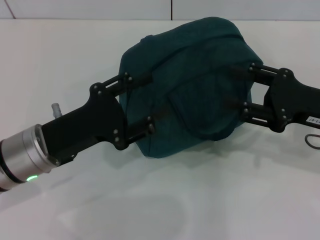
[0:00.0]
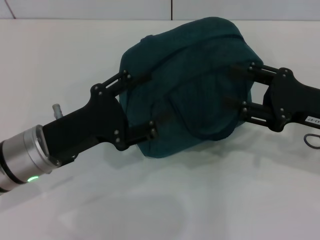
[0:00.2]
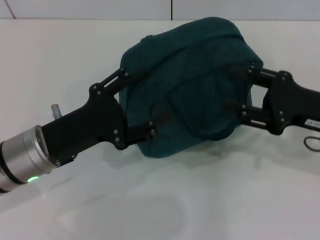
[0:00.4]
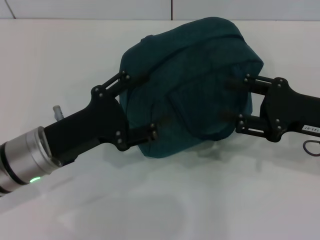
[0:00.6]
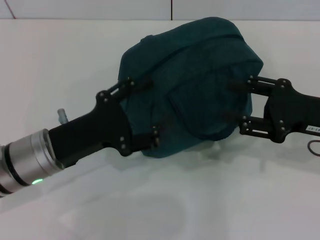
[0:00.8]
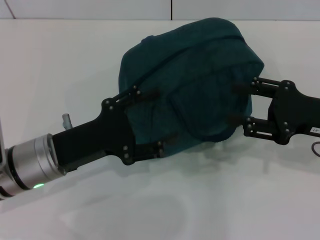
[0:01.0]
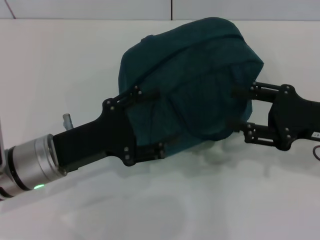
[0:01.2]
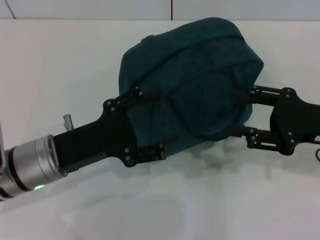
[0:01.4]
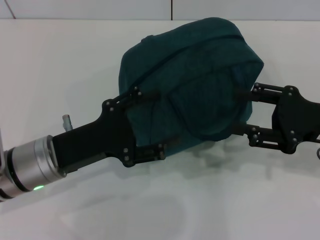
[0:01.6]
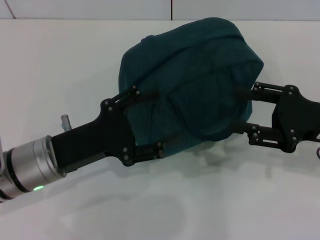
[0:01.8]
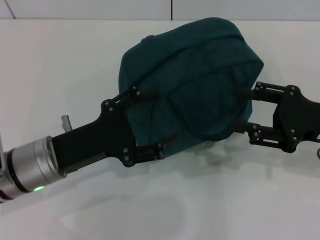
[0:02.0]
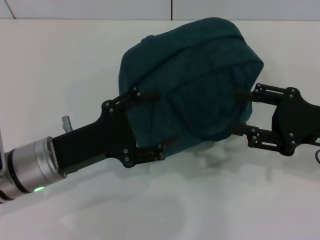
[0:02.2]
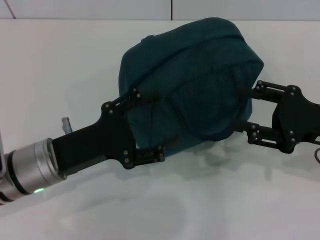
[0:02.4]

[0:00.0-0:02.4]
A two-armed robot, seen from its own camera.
0.0 to 1.2 s: The grippers stay close to where they were, moving slightly.
1.2 to 2.4 s: Neither gripper changes place.

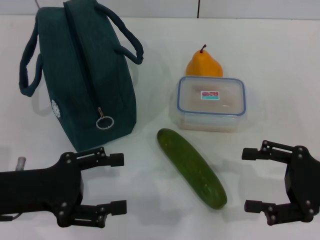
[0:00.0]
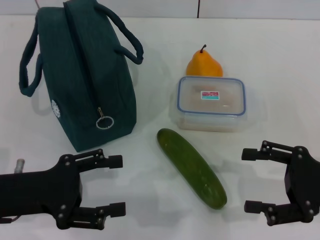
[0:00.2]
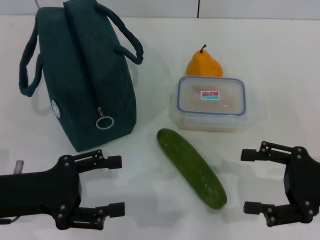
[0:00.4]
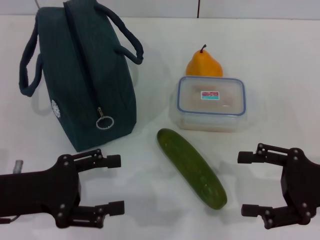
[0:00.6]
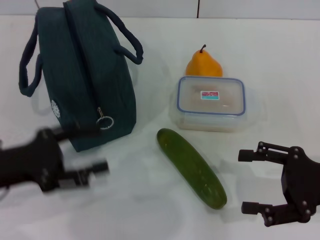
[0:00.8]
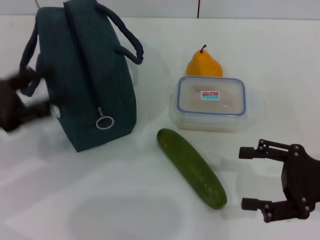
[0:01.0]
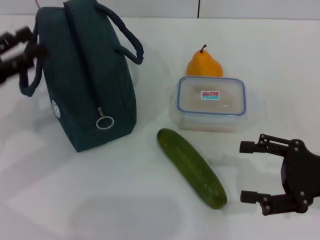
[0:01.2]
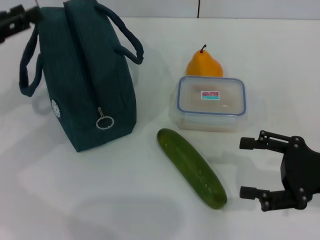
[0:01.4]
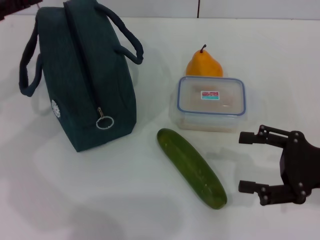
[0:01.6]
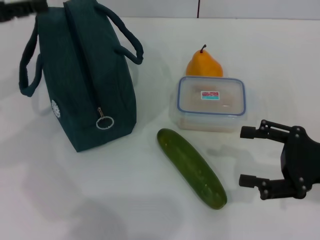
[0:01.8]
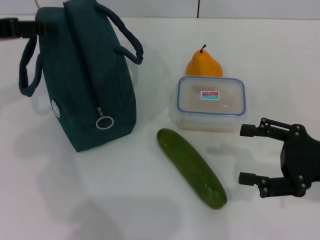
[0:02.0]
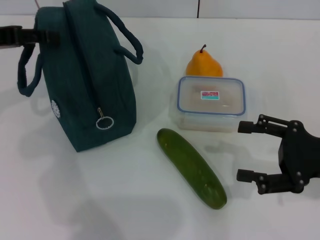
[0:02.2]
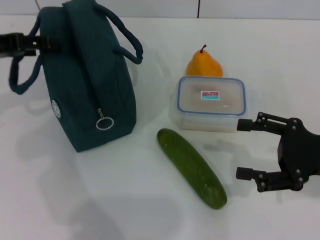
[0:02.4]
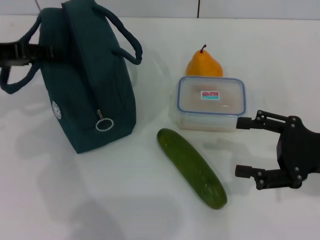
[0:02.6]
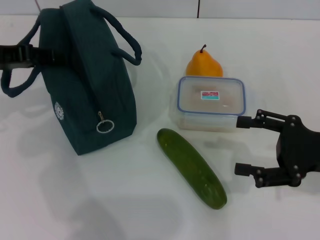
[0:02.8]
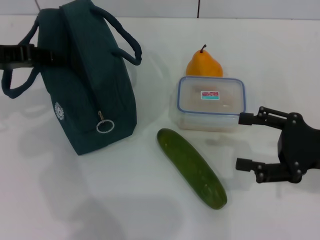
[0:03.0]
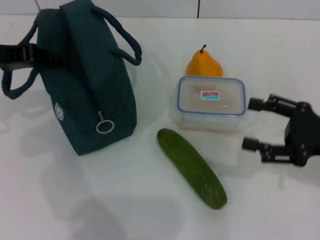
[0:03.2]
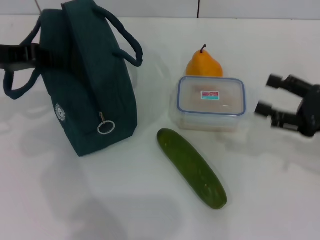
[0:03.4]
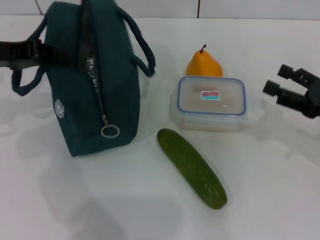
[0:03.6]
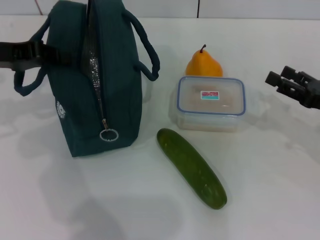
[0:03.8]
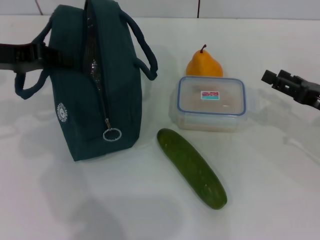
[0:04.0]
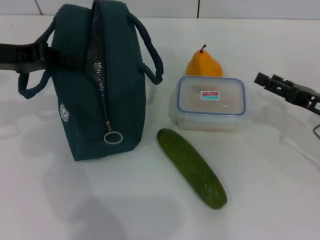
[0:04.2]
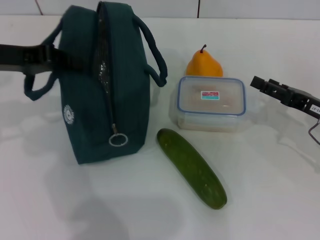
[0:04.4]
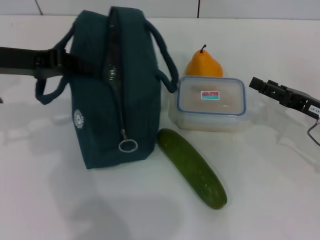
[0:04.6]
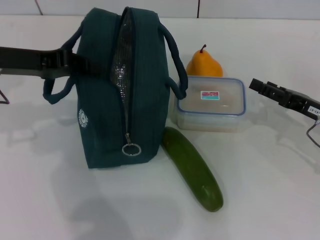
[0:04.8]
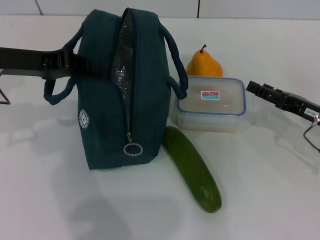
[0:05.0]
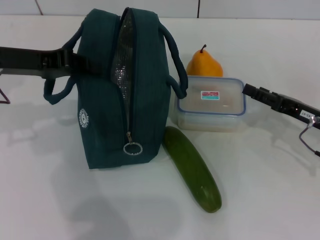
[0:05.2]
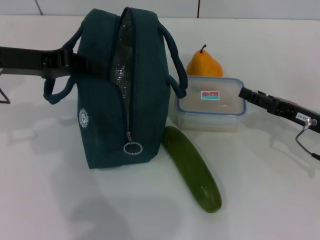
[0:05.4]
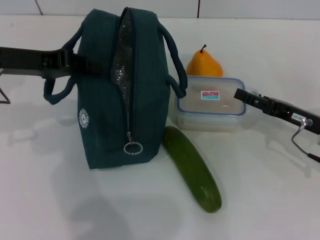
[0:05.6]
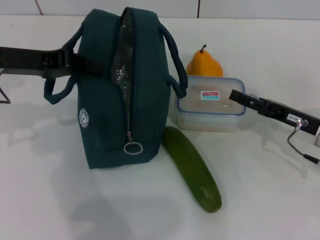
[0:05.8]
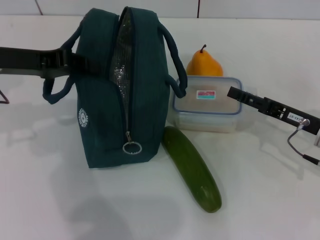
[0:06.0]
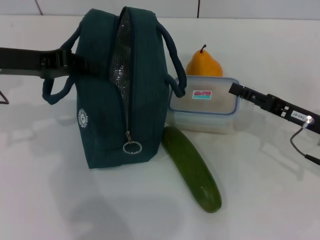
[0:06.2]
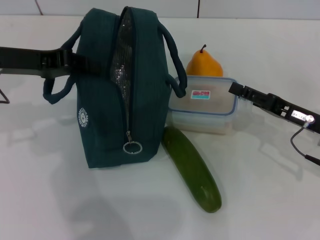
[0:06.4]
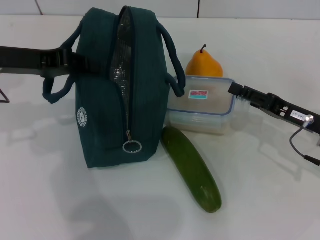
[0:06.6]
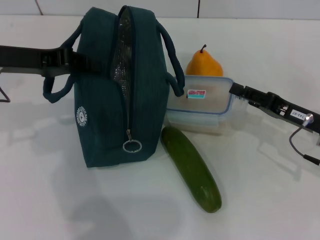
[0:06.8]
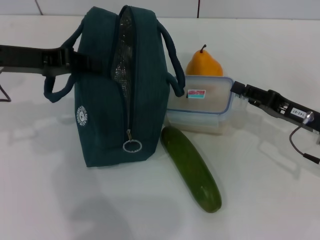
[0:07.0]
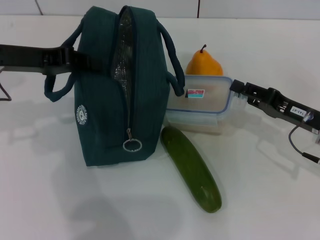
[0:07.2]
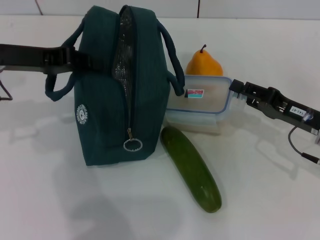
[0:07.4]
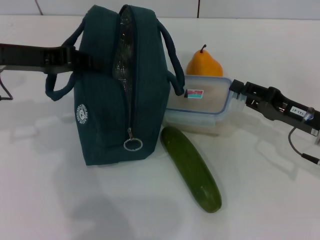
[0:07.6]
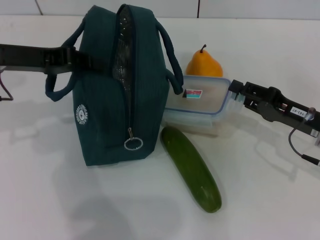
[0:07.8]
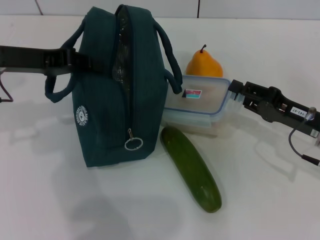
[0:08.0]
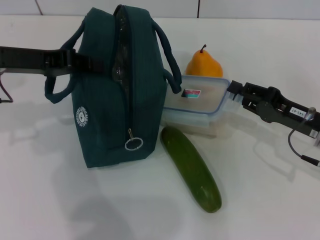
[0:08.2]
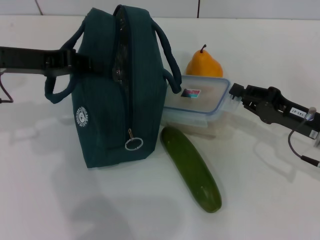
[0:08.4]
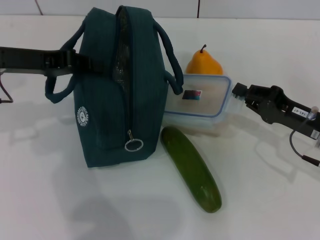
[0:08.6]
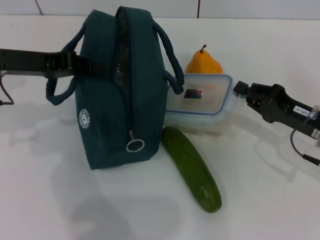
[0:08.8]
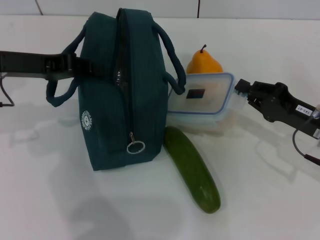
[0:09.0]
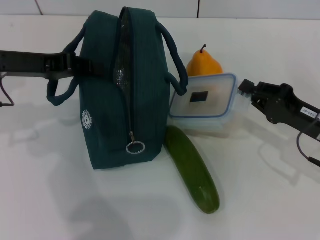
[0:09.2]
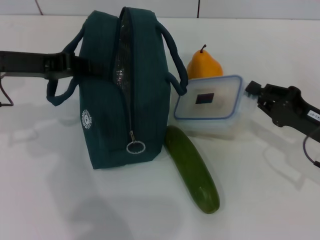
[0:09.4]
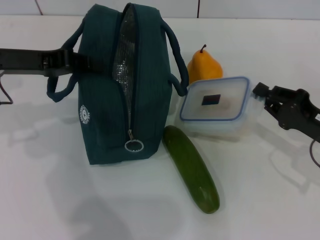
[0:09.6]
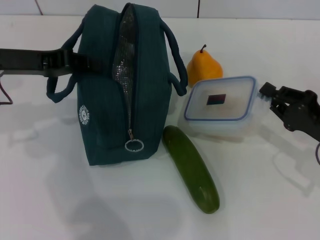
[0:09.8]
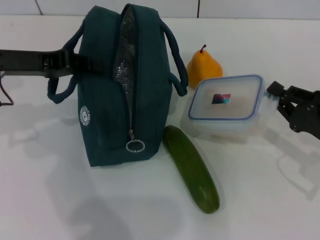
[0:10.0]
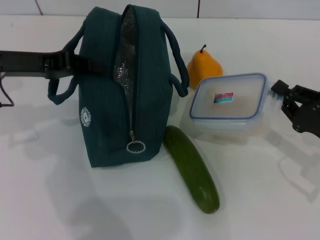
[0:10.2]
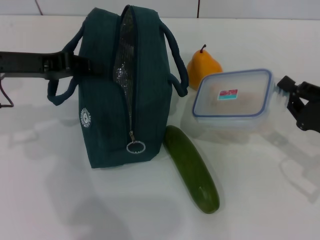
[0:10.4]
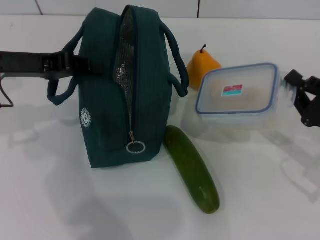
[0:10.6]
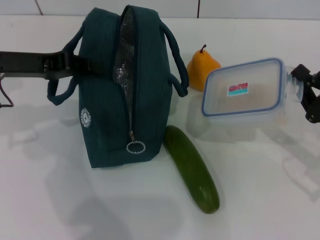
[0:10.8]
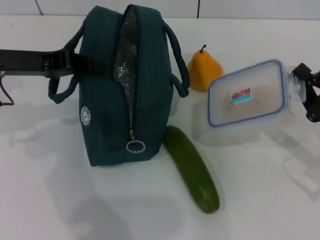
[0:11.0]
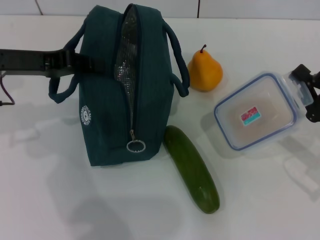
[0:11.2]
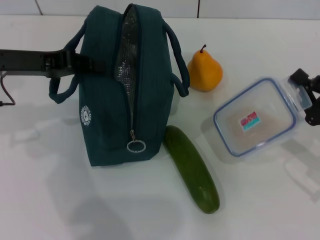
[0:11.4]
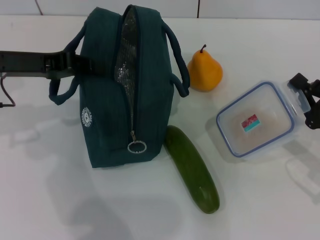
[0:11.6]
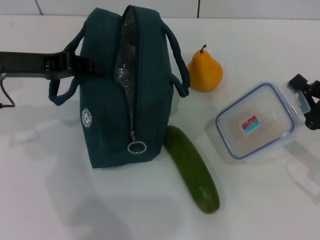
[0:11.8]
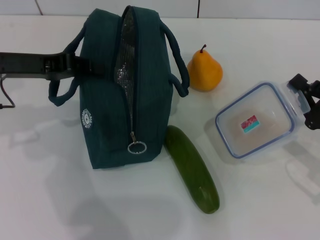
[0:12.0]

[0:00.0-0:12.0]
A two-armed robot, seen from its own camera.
Step, 0.0 to 3.8 s: Hold the lunch bag with your left hand.
Step, 4.0 to 8.8 s: Pick up the lunch box with your right hand.
0.0 to 1.6 s: The left gripper is displaced forward, upward and to the left by some 15 cm.
3.0 to 4.4 s: The right gripper goes about 5 cm forward. The left gripper closes.
4.4 to 6.0 s: The grippers move only a little.
6.0 to 7.6 s: The right gripper closes up.
7.6 to 9.0 s: The right gripper closes.
9.0 to 10.4 s: The right gripper changes place by some 5 cm.
10.4 to 12.0 s: The grippers stay close to where they were, moving slightly.

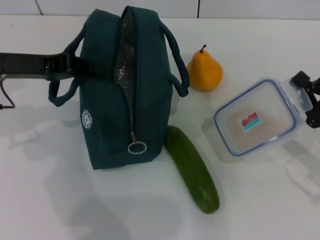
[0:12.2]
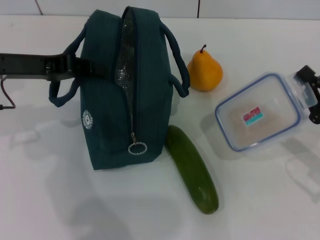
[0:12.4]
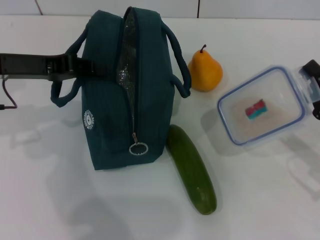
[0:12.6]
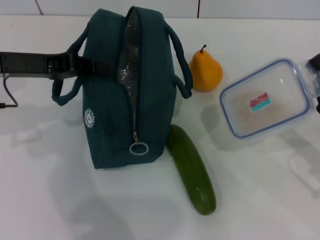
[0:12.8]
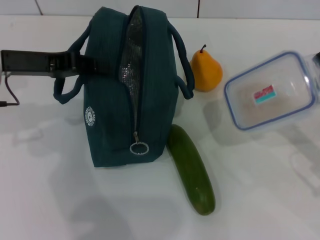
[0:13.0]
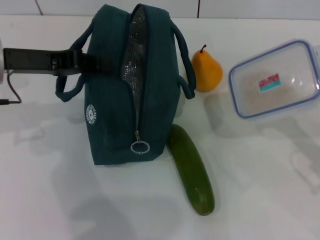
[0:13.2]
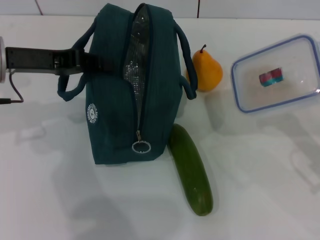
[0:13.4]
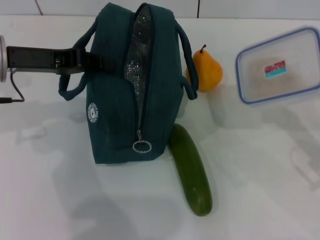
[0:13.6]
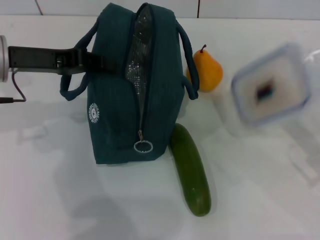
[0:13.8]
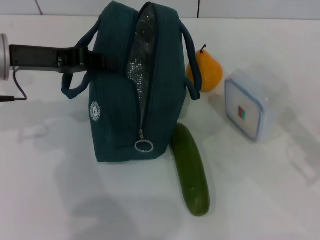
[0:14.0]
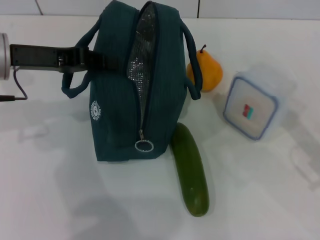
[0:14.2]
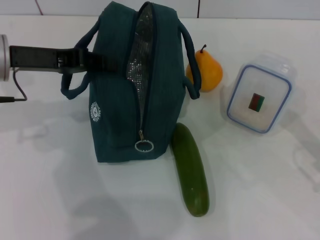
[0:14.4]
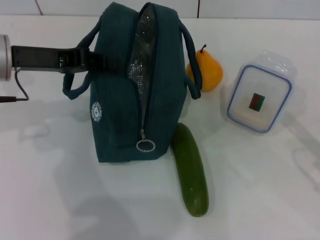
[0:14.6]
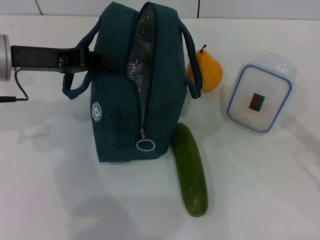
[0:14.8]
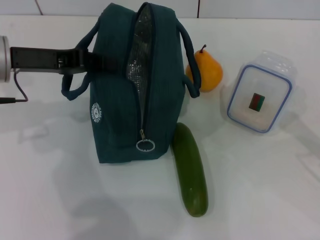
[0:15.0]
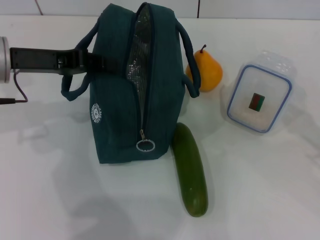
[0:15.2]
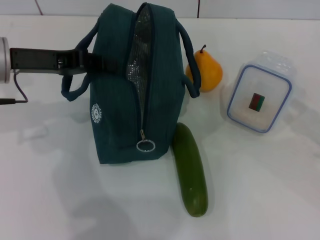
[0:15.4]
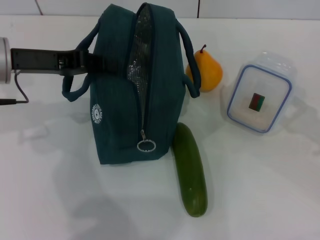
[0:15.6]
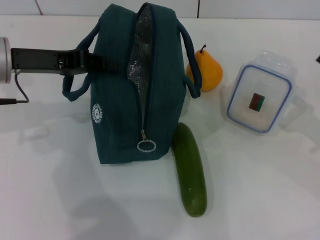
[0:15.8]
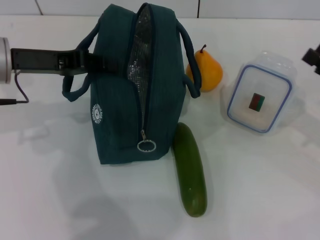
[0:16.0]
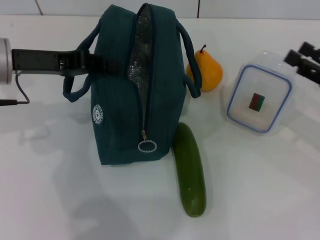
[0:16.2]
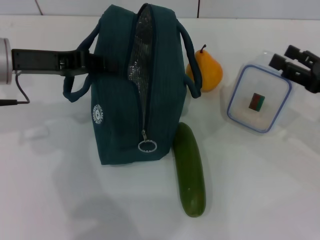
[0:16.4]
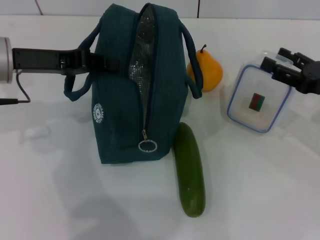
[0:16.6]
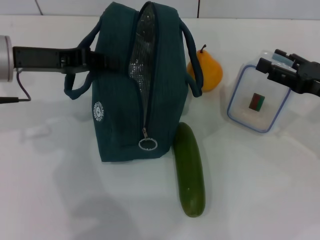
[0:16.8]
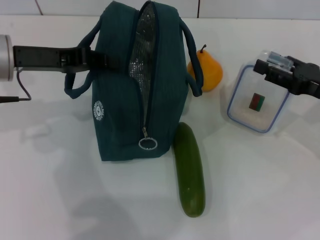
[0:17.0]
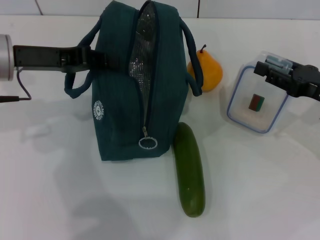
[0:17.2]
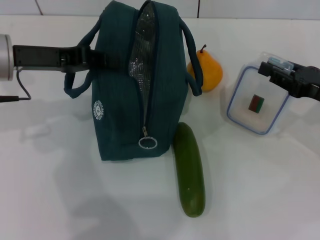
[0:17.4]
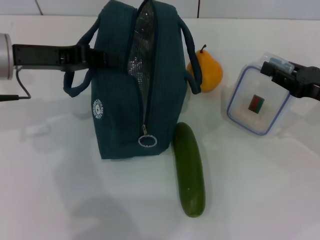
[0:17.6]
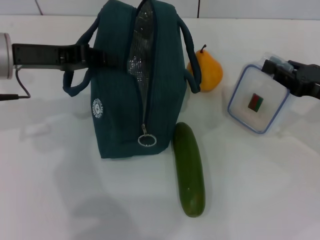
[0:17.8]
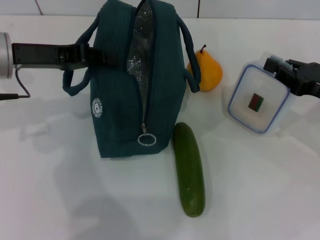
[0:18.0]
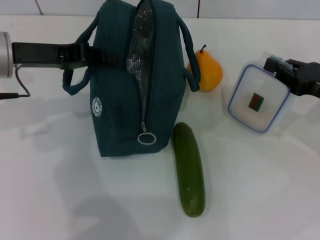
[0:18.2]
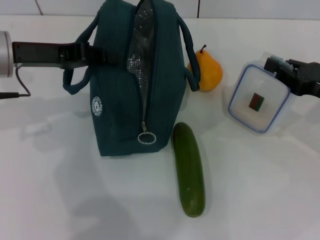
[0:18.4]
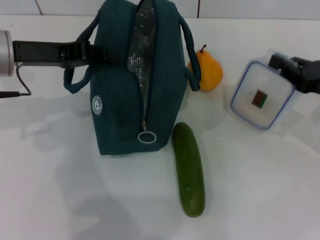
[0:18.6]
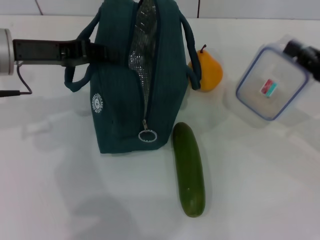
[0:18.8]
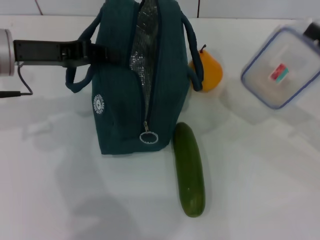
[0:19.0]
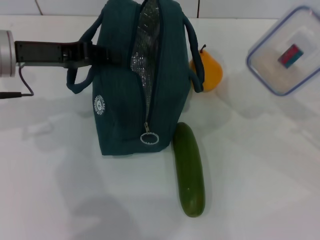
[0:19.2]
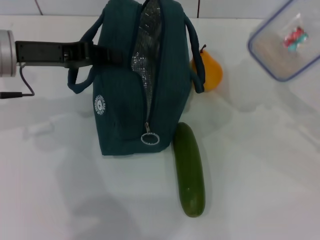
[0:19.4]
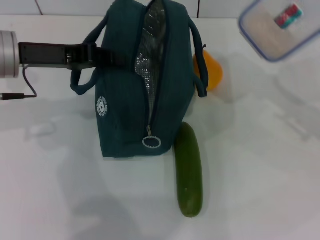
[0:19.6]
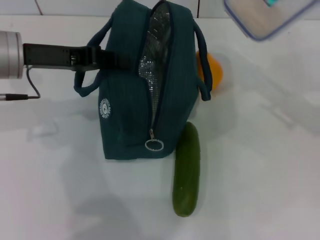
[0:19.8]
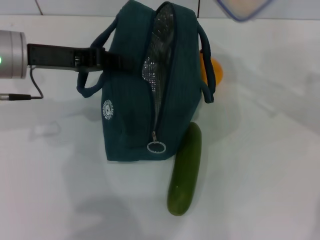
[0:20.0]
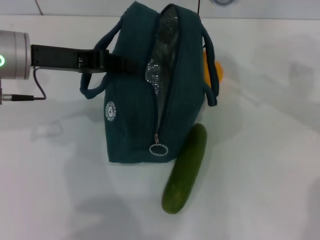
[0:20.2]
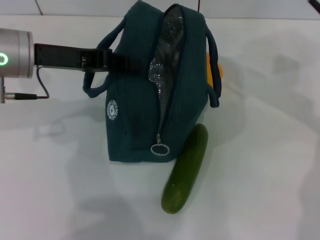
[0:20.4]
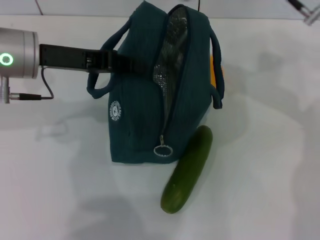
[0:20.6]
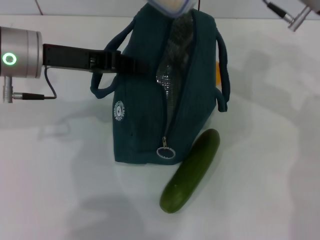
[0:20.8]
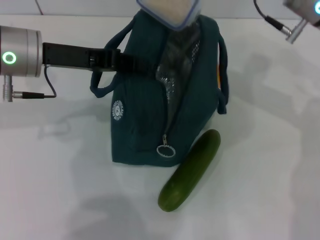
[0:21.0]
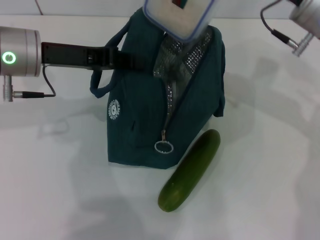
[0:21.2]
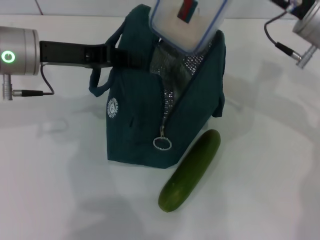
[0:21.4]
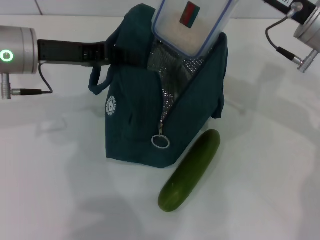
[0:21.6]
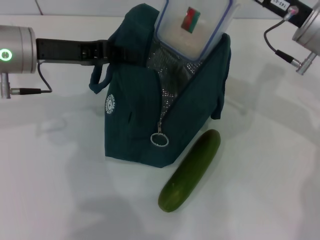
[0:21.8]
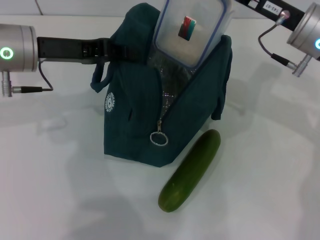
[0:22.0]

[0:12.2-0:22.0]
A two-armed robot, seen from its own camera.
12.2 to 13.6 s: The grippers make only small movements.
15.0 to 16.4 s: The right gripper is displaced forward by approximately 5 cm, and opens up.
16.4 to 17.8 s: The right gripper closes its fingers.
17.8 to 19.2 s: The right gripper changes place by roughly 5 cm.
19.2 to 20.6 s: The right gripper moves to the left, forward and upward, roughly 20 cm.
20.6 to 22.0 s: The right gripper goes about 5 cm downward.
